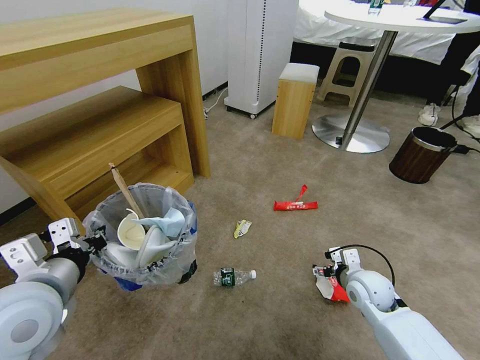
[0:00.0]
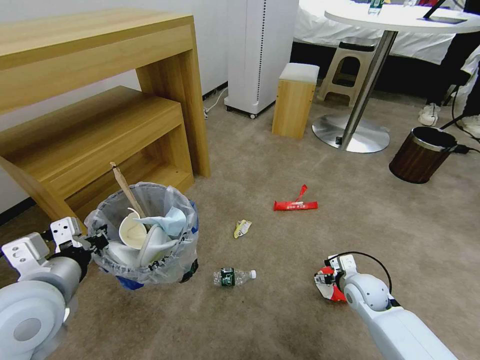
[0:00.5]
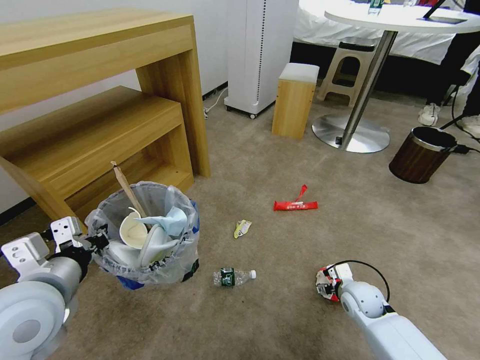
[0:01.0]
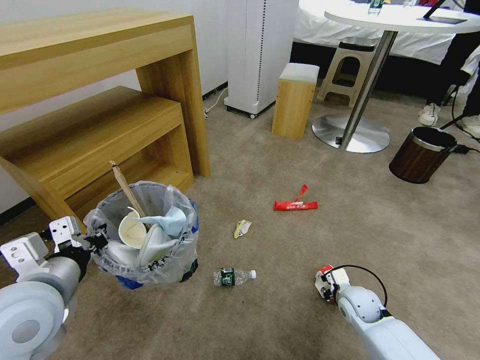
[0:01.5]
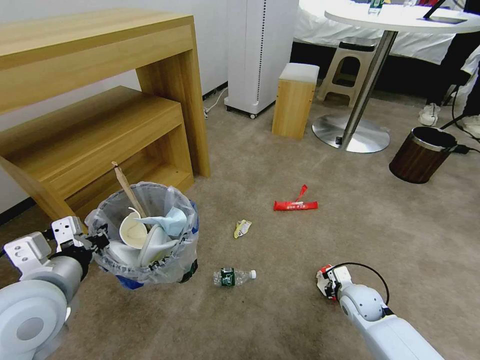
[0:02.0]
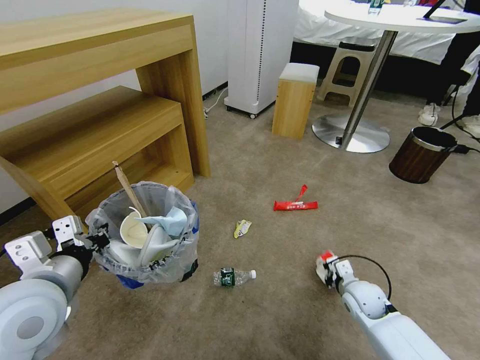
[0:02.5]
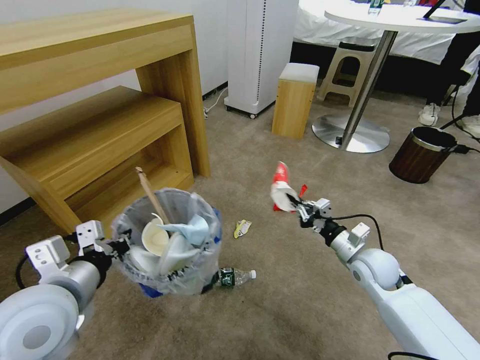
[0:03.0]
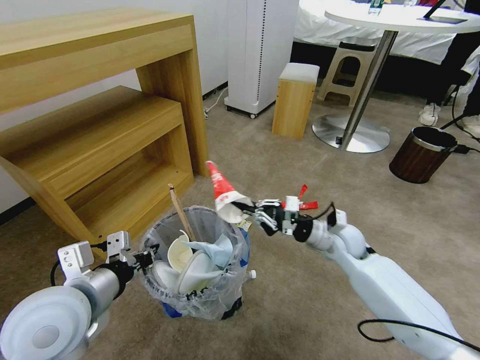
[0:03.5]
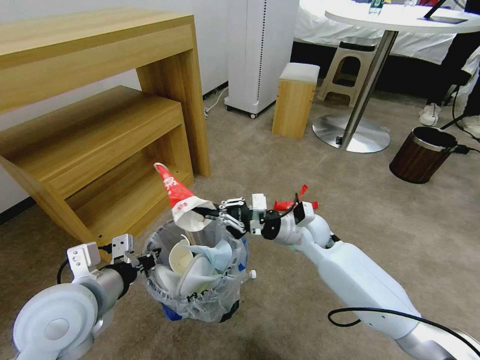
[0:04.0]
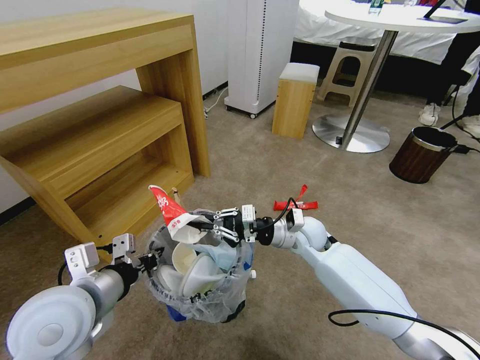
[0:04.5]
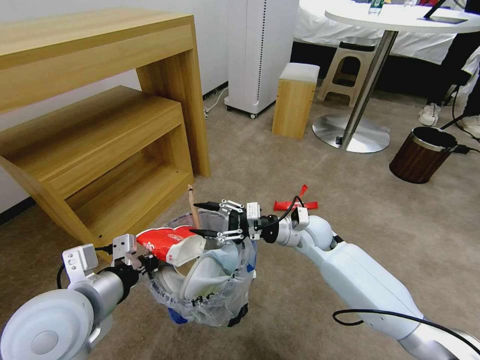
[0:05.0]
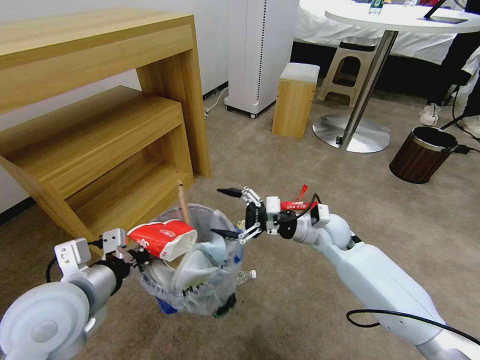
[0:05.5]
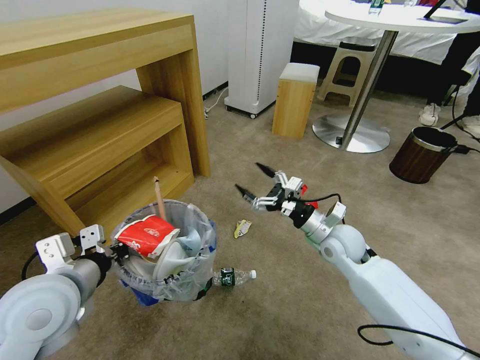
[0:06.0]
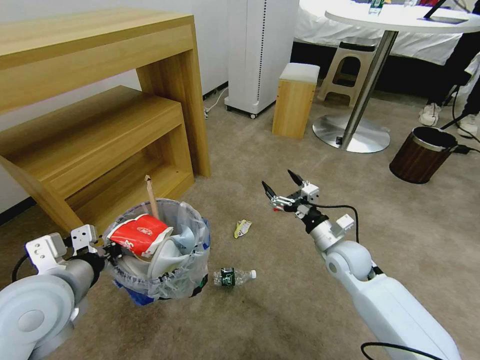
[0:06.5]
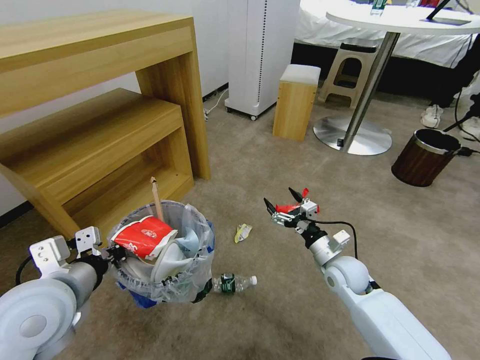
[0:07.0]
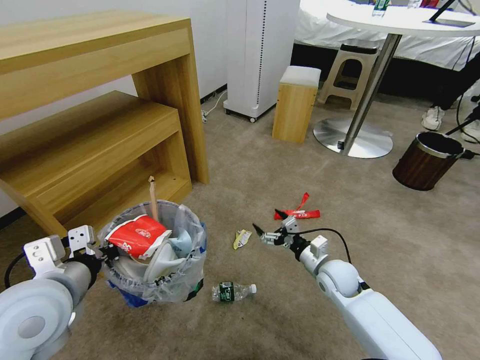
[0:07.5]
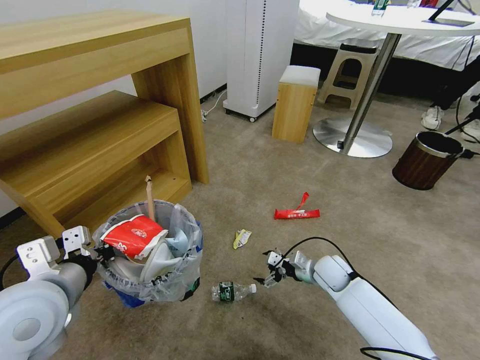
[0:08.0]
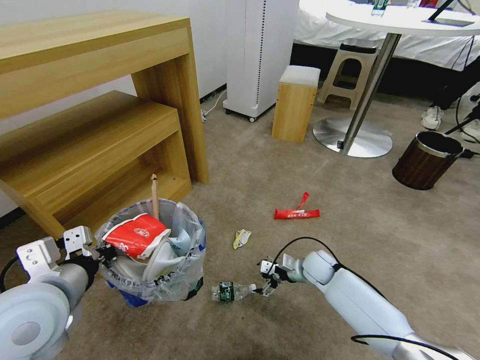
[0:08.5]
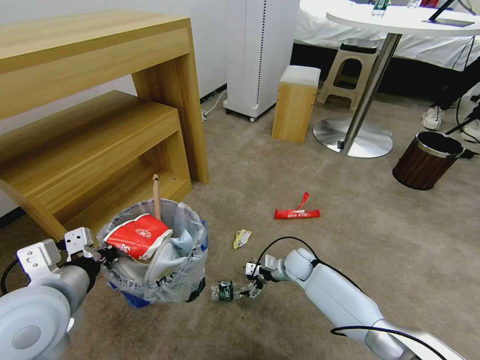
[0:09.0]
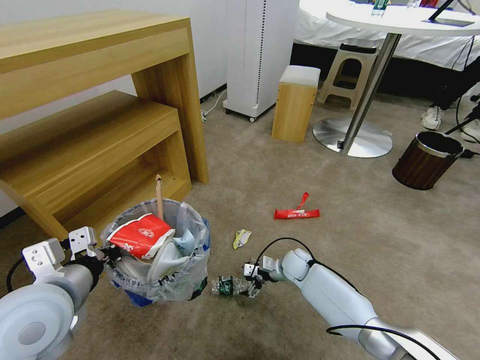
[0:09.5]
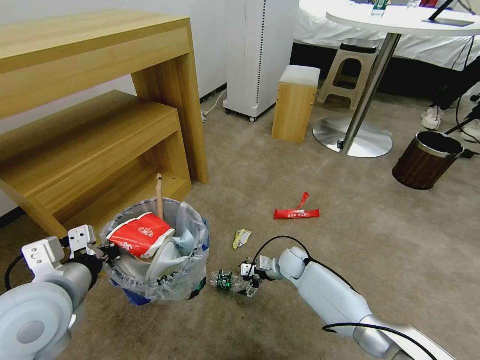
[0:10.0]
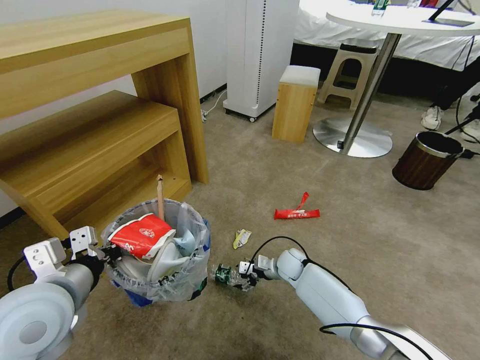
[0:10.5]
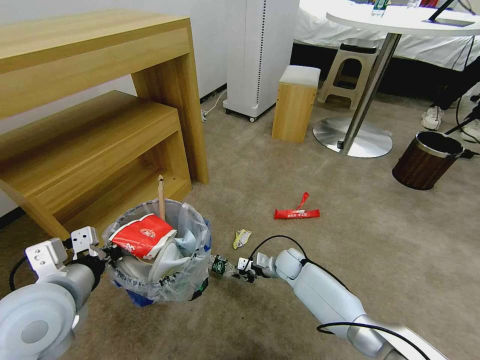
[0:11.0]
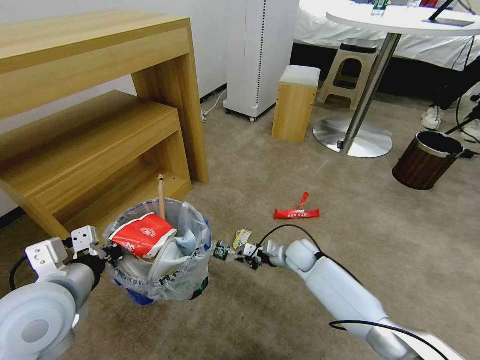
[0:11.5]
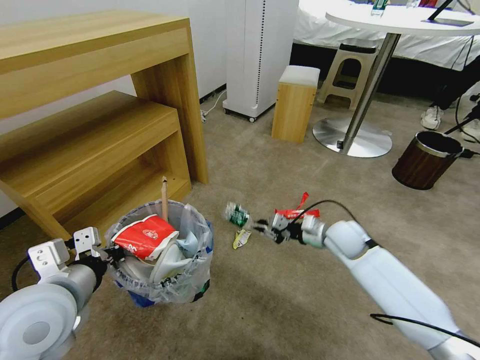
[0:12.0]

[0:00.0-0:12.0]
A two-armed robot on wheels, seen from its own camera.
Task of the whole recording: Pick up the trash bin and place the garbage on the floor into it.
0:00.0 to 0:02.0: The right gripper is displaced downward by some 10 cm, and closes its fingers.
0:02.0 to 0:04.0: The right gripper goes roughly 25 cm upward, to the left and forward.
0:04.0 to 0:06.0: The right gripper shifts about 5 cm to the right, and opens its fingers.
0:06.0 to 0:08.0: The right gripper moves downward, approximately 15 cm.
0:08.0 to 0:10.0: The right gripper moves to the left, forward and downward, about 10 cm.
0:10.0 to 0:12.0: The right gripper heads upward and to the right, covering approximately 20 cm, and closes its fingers.

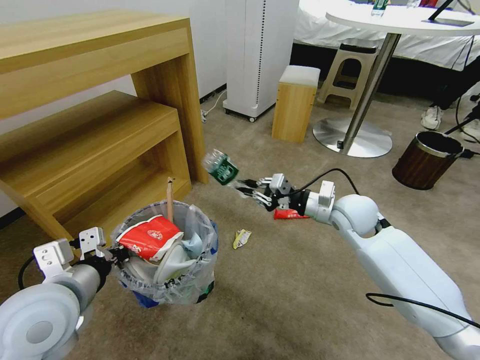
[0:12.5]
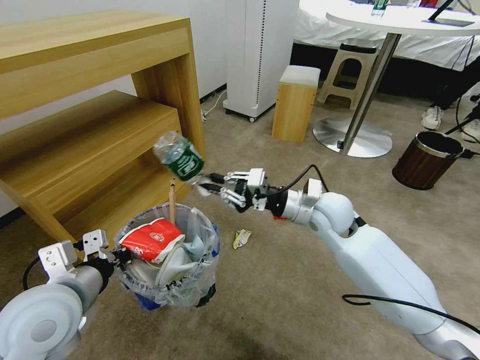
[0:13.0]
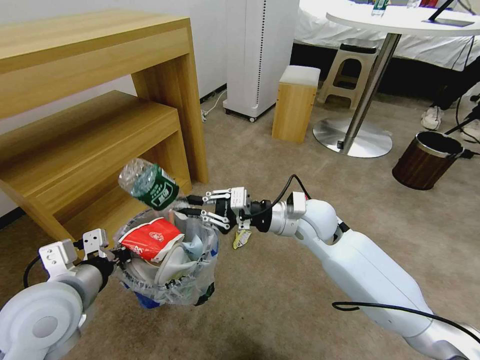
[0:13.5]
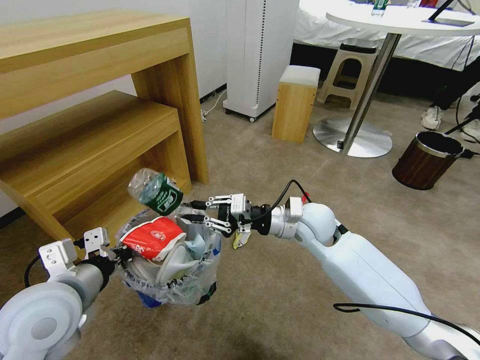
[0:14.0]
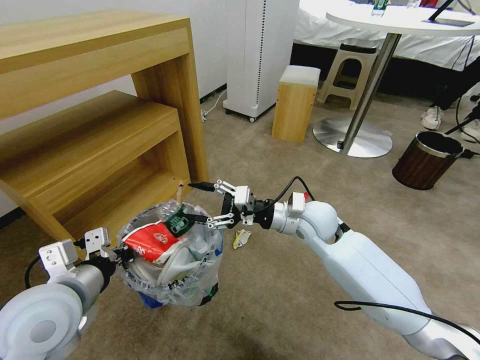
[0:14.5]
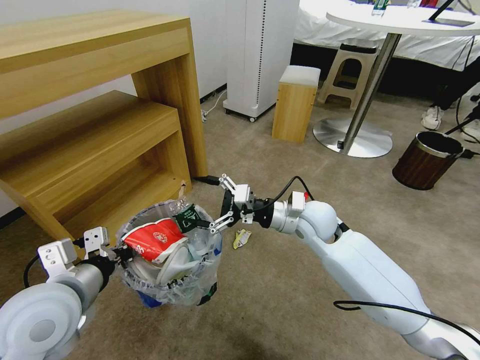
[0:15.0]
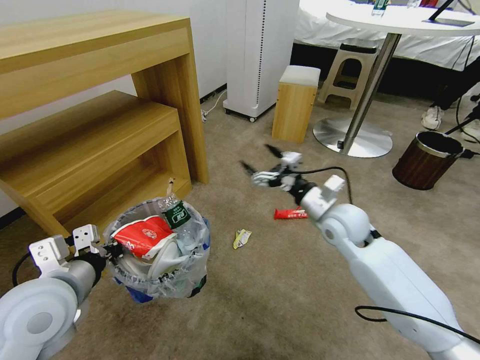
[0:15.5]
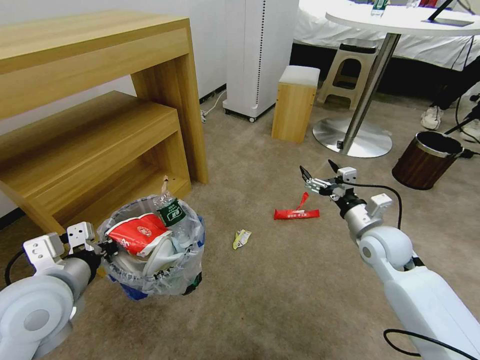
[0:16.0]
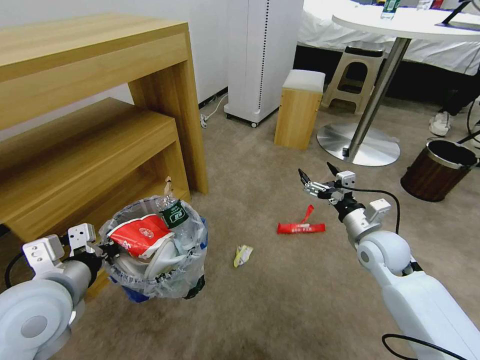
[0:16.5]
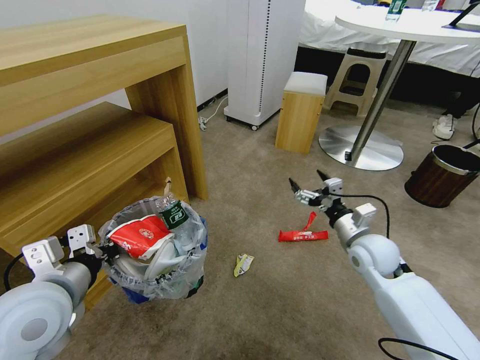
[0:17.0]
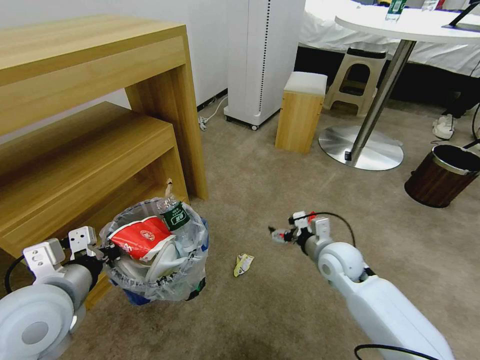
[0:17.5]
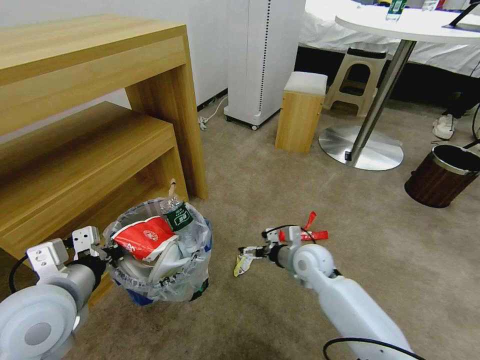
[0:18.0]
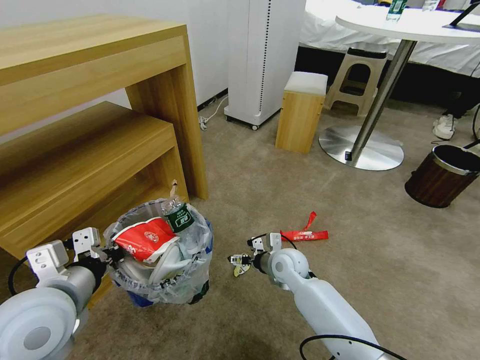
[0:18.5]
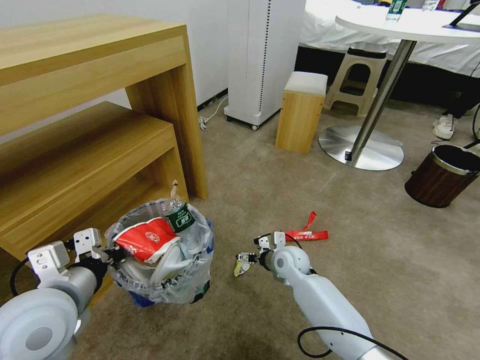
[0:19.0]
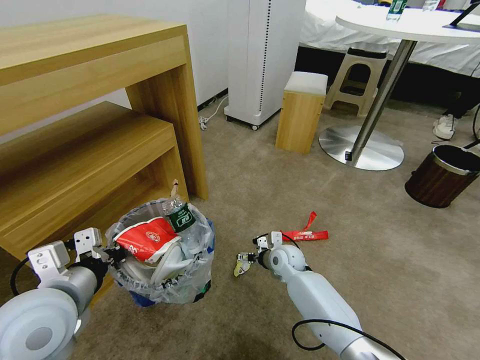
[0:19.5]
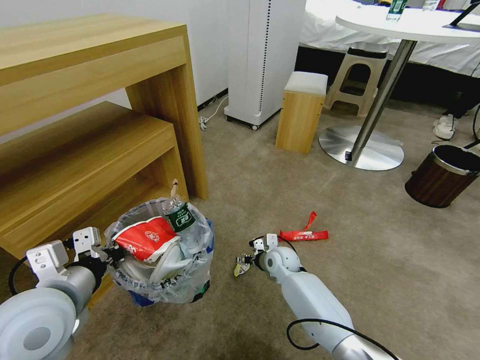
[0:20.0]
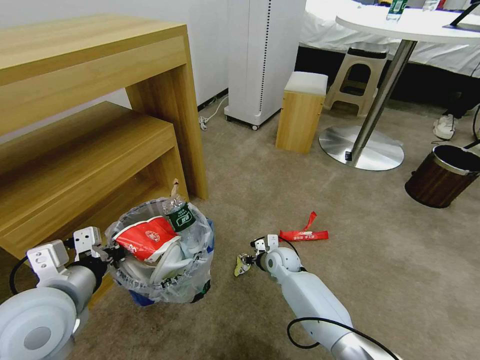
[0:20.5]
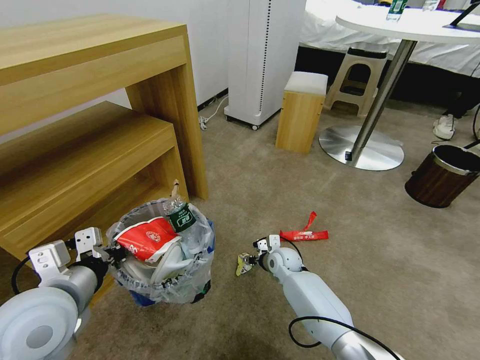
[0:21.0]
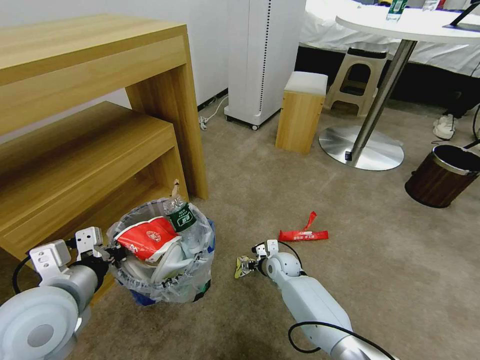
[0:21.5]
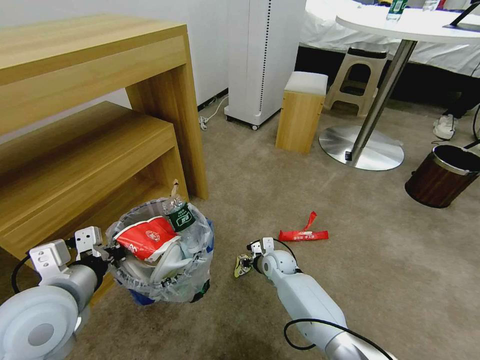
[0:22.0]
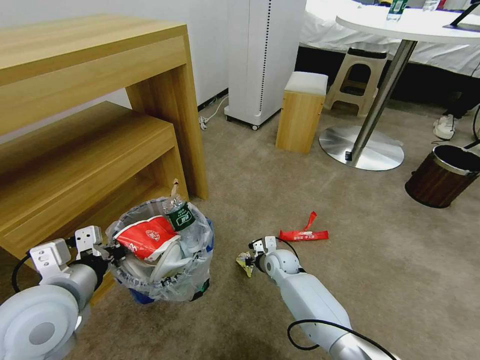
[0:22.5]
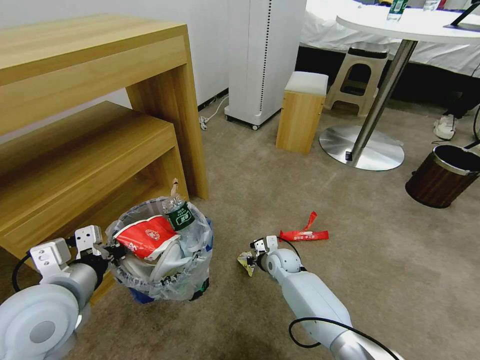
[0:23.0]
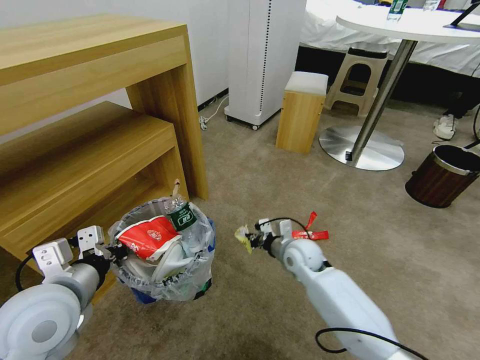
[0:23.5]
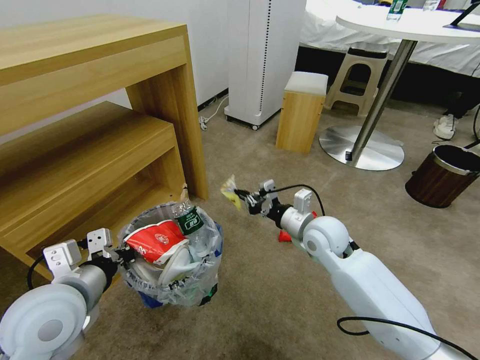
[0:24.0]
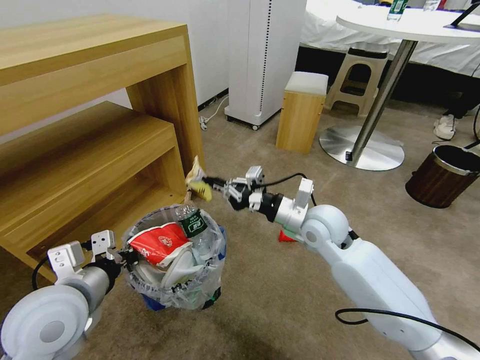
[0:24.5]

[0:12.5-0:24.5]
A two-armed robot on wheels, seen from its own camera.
Task of the whole recording: Pick up the trash bin and place the garbage on the floor into it.
0:12.5 to 0:14.5: The right gripper heads to the left, covering about 10 cm, and opens its fingers.
0:14.5 to 0:16.5: The right gripper goes roughly 15 cm to the right.
0:16.5 to 0:18.5: The right gripper goes about 20 cm to the left and downward.
0:18.5 to 0:20.5: The right gripper heads downward, covering some 5 cm, and closes.
0:20.5 to 0:22.5: The right gripper closes up.
0:22.5 to 0:24.5: The right gripper goes some 25 cm upward.

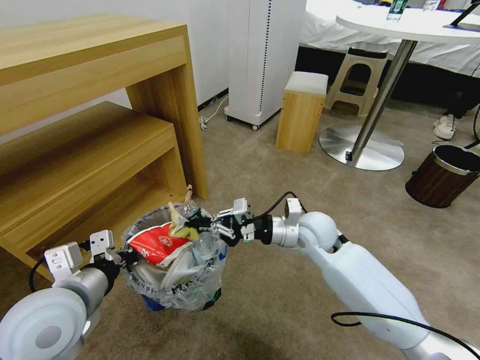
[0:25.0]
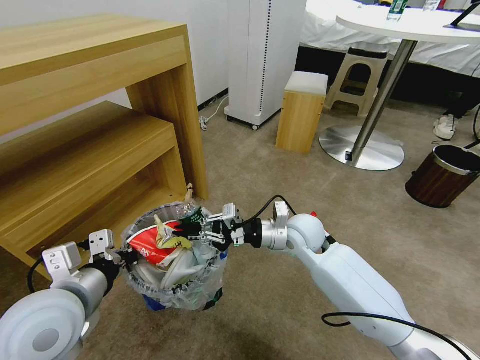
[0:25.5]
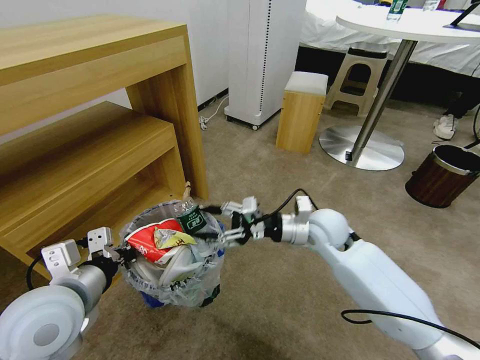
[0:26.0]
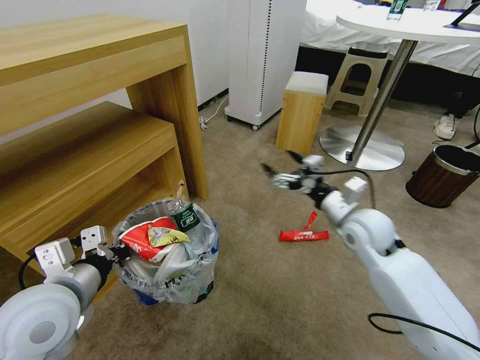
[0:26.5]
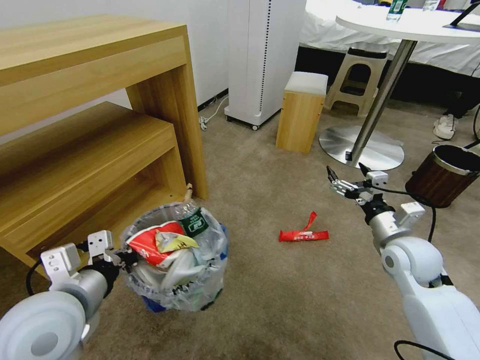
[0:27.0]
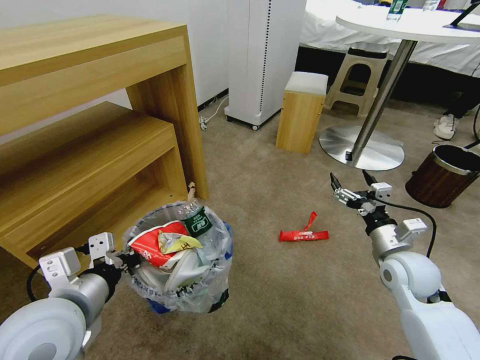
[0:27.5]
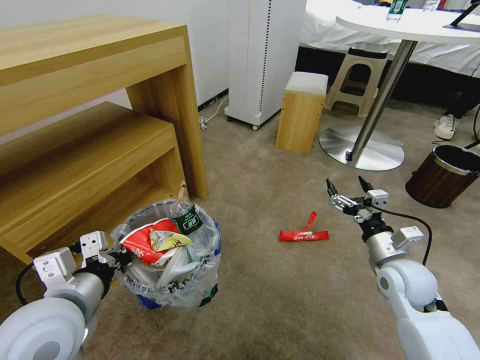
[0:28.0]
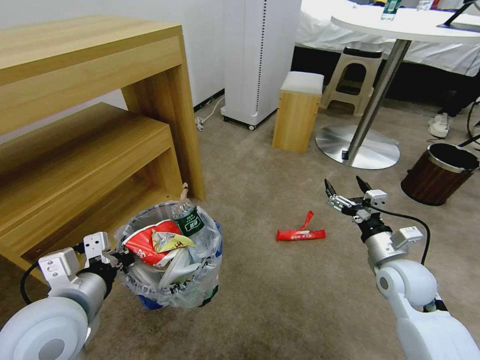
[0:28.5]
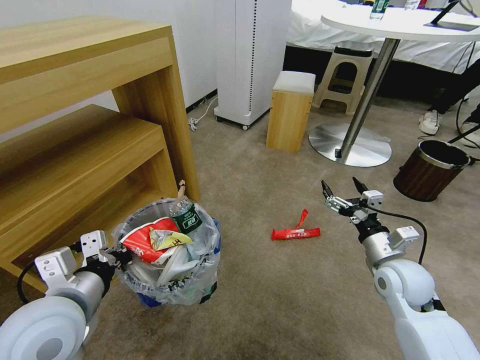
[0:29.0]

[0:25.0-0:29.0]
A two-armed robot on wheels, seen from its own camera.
Task of the whole recording: Pick up the trash bin and place the garbage on the floor into it.
0:25.0 to 0:27.0: The right gripper shifts roughly 20 cm to the right, and opens up.
